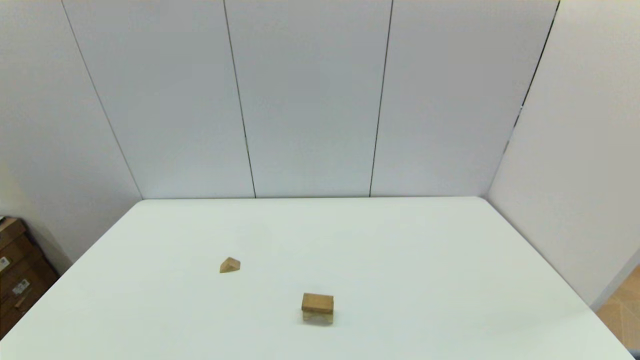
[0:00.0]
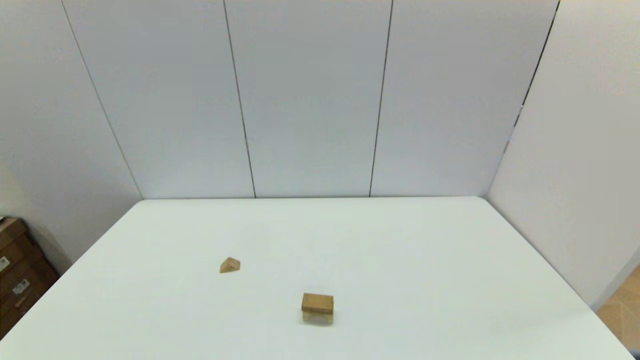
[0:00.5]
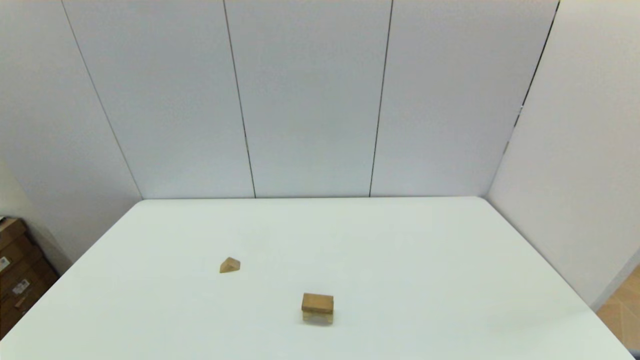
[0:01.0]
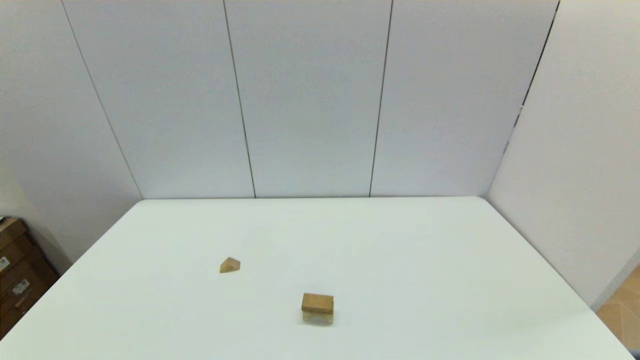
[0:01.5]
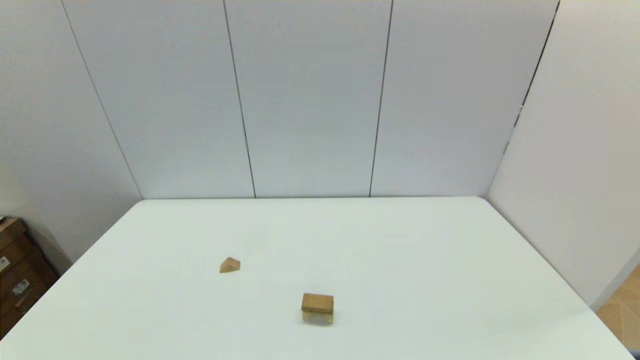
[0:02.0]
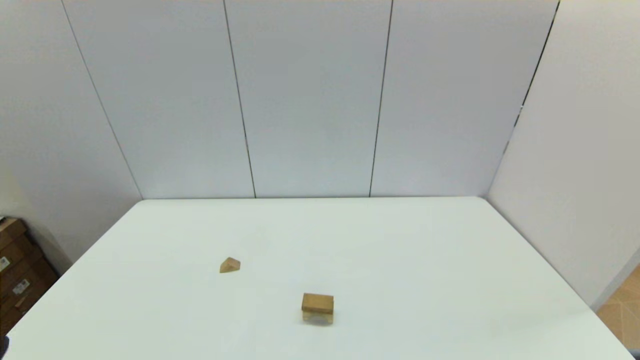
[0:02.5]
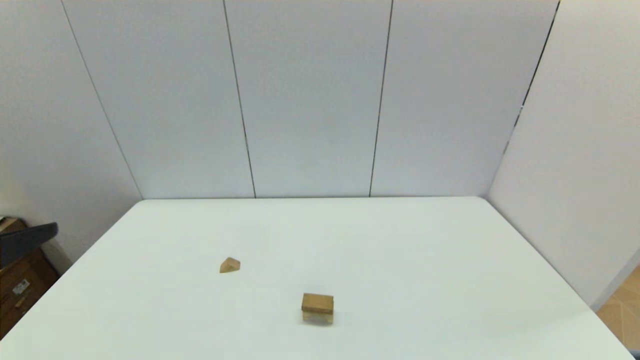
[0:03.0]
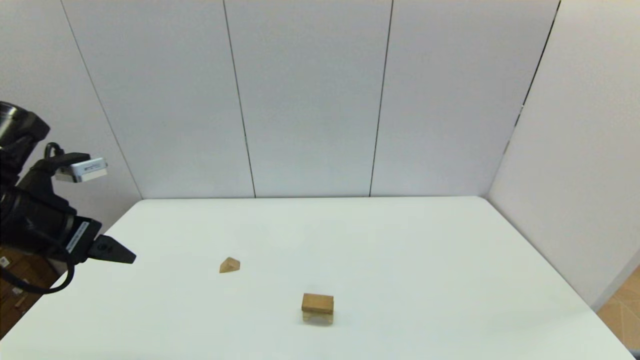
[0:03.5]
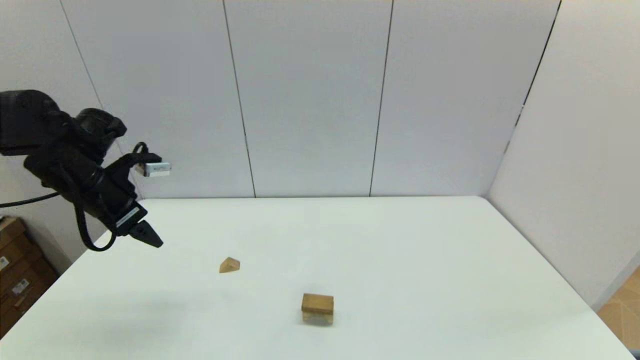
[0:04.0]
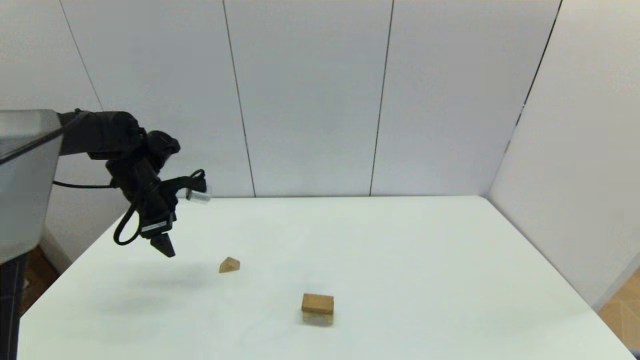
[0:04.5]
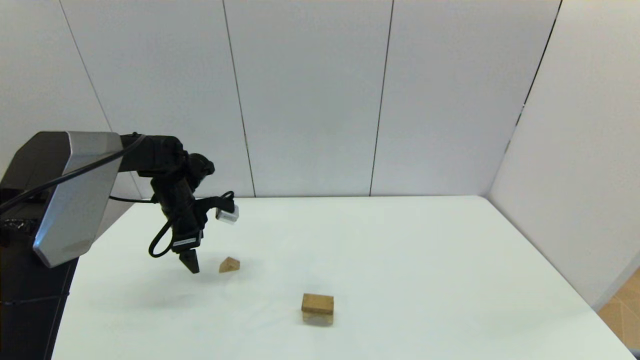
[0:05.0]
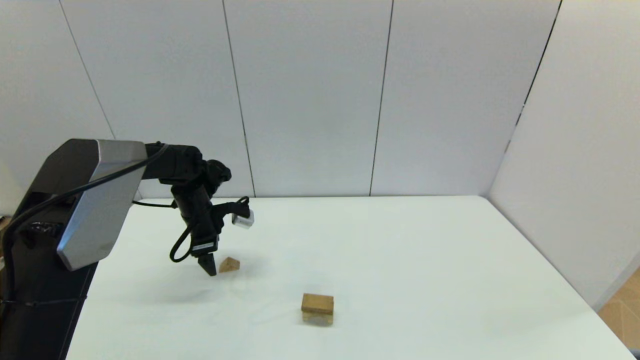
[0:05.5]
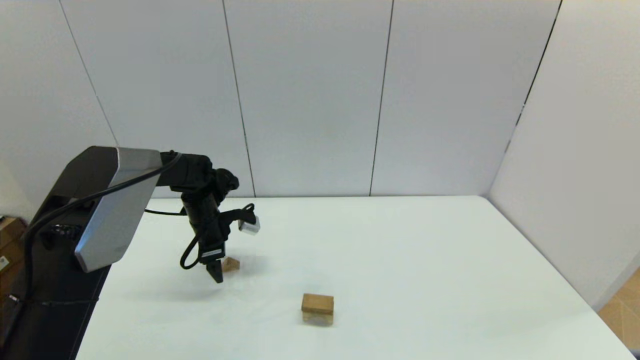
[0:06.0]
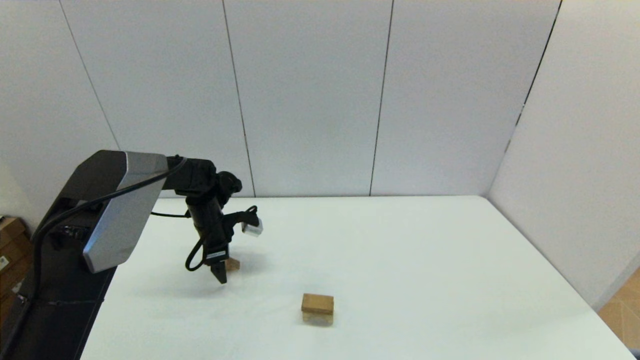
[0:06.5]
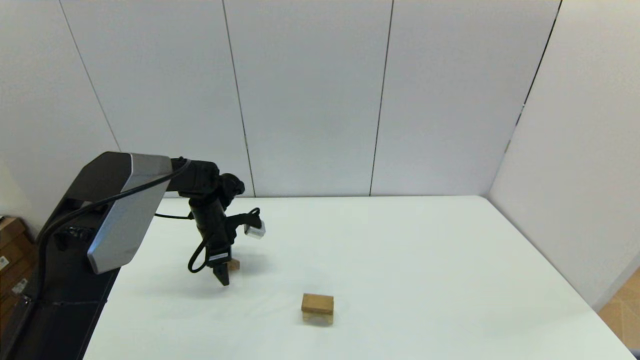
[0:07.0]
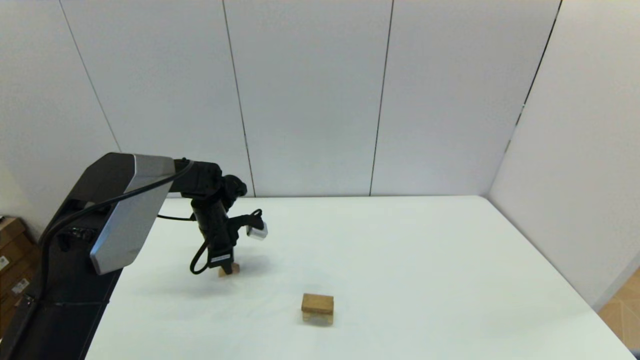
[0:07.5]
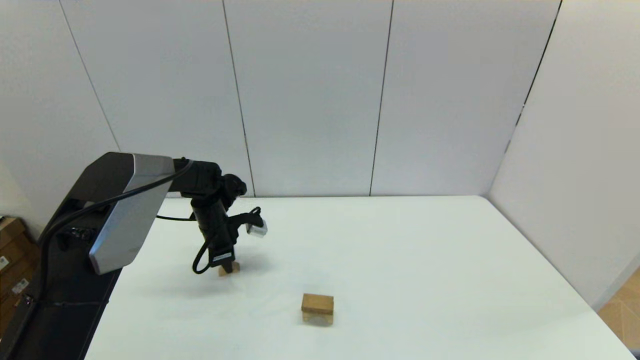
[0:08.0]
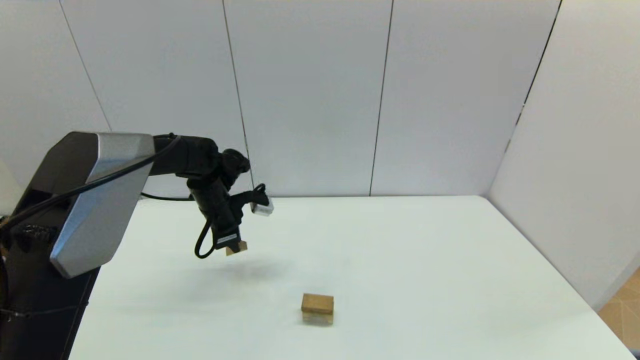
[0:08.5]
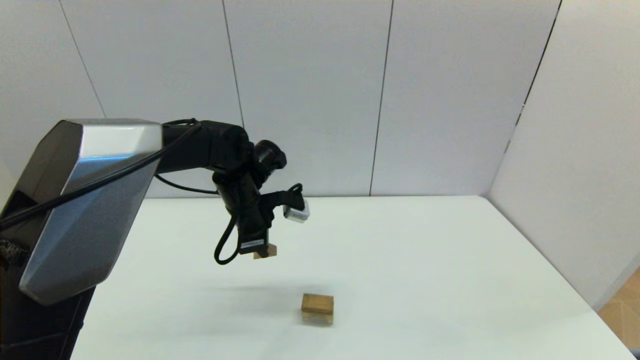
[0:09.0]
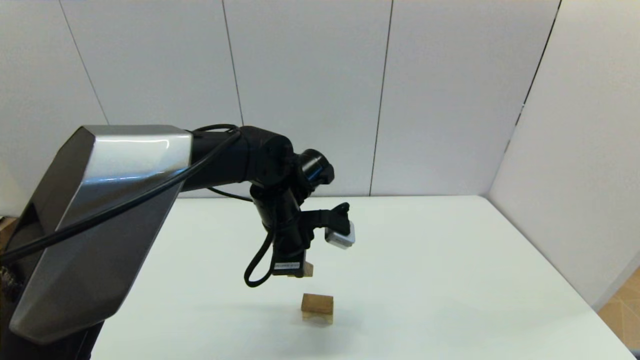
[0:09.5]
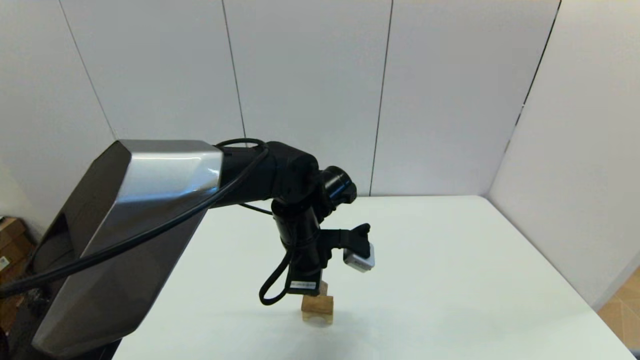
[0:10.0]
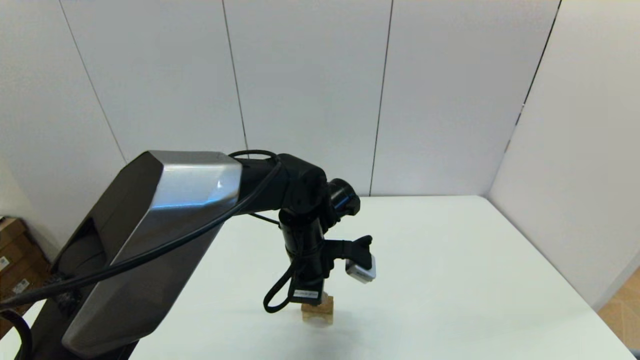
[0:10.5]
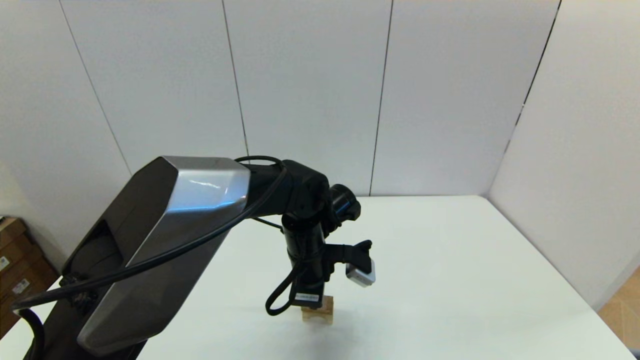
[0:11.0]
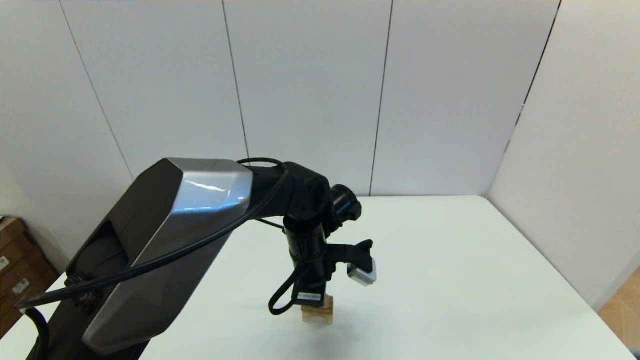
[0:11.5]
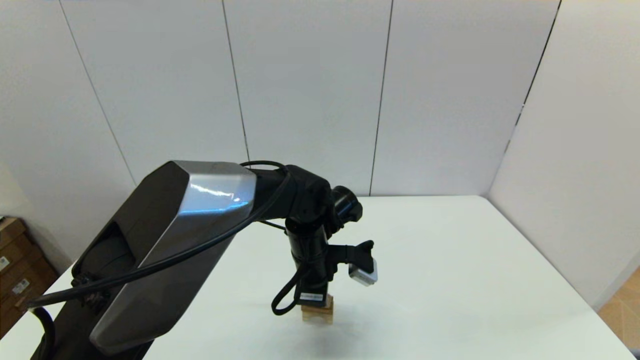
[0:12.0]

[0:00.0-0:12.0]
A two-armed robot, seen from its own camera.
Task of the whole recording: place the arched building blocks in the center of the table, set up the rectangular building blocks, and then set up the triangular building blocks.
Step, 0:00.0 to 0:07.5: Grasp the triangle-shaped block with the left gripper.
0:02.0 to 0:04.0: The left gripper goes approximately 35 cm forward.
0:04.0 to 0:06.0: The left gripper goes roughly 20 cm downward, to the right and forward.
0:06.0 to 0:08.0: The left gripper closes.
0:08.0 to 0:10.0: The left gripper goes some 25 cm to the right, backward and upward.
0:10.0 to 0:12.0: The grippers move only a little.

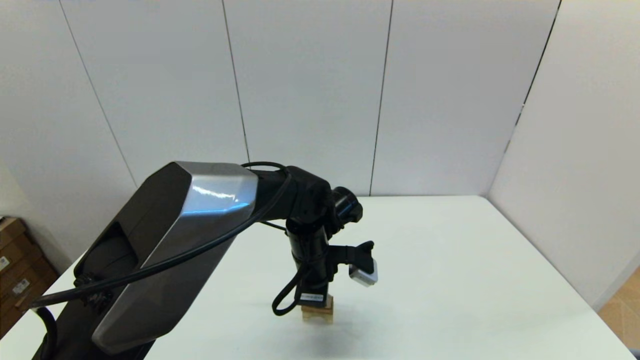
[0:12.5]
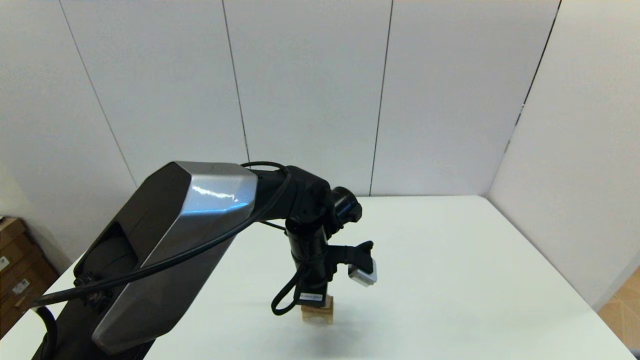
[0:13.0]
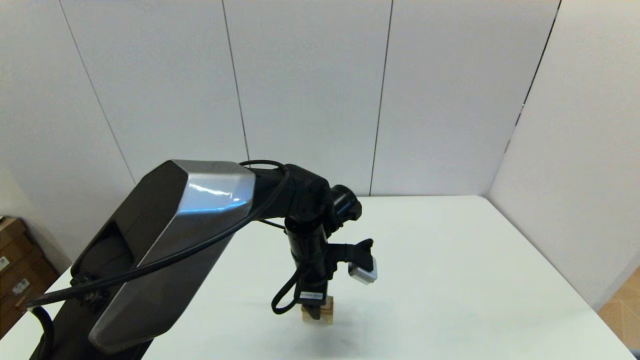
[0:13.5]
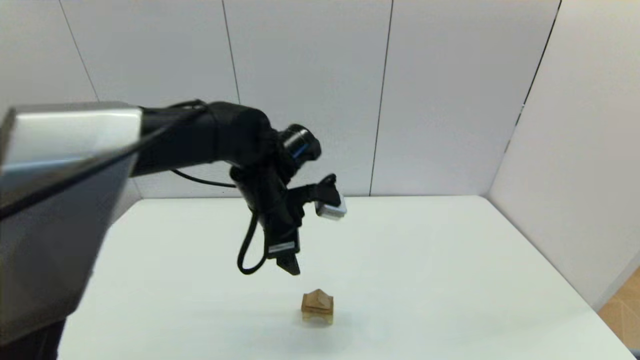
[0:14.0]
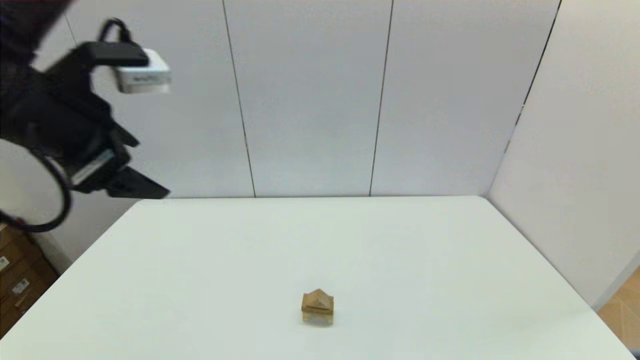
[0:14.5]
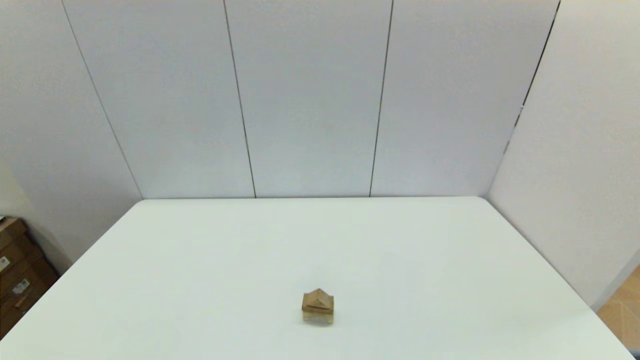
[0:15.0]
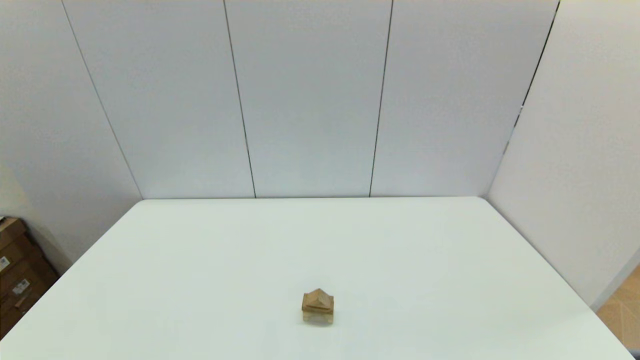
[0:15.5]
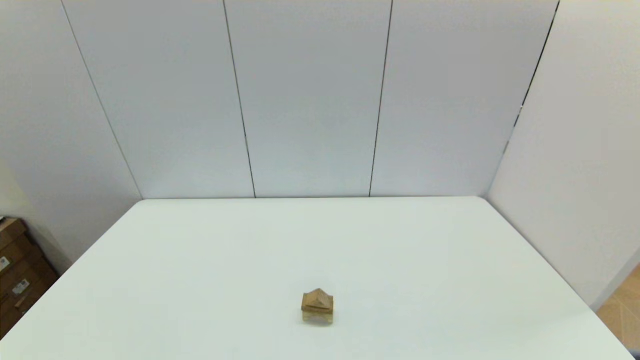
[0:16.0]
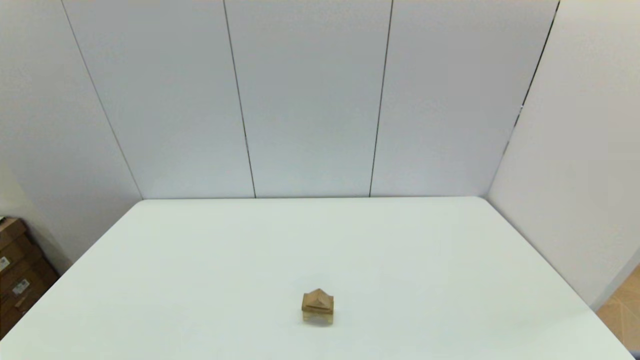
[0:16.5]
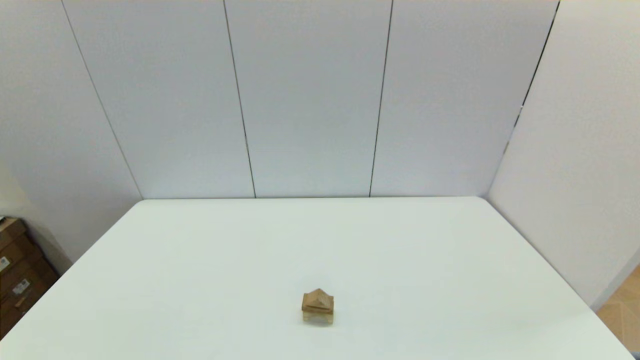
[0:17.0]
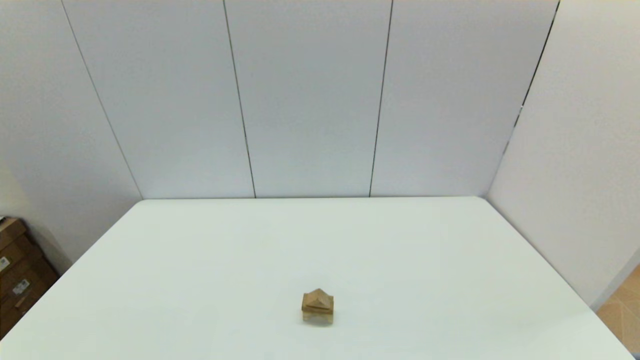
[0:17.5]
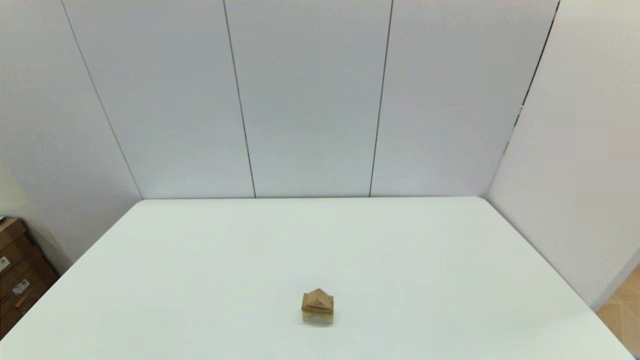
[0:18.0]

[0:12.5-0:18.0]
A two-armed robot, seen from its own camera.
Task of the whole recording: place the arched building blocks in the center of the table, set up the rectangular building blocks, and then set up the triangular building blocks.
0:12.5 to 0:14.5: The left gripper shifts approximately 35 cm upward, to the left and backward, and opens its fingers.
0:14.5 to 0:16.0: The left gripper heads backward and downward, covering some 35 cm.

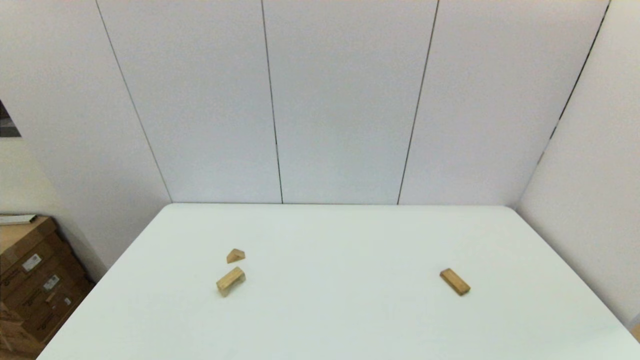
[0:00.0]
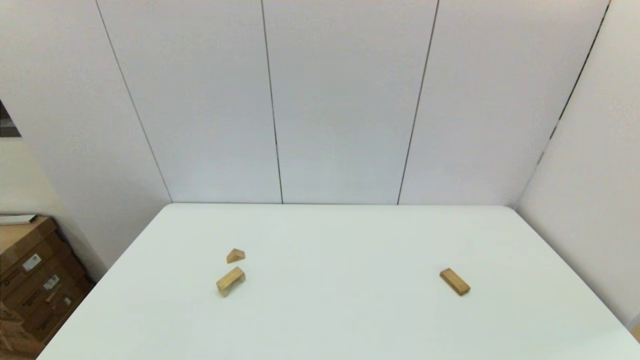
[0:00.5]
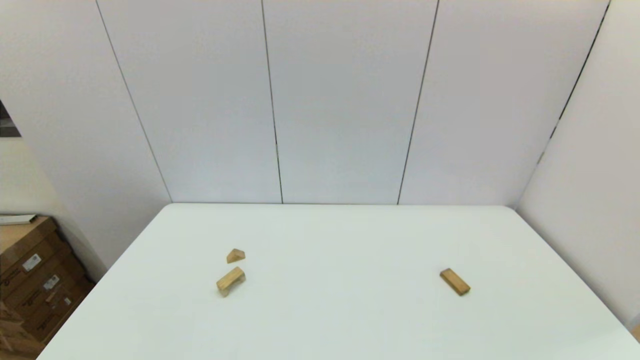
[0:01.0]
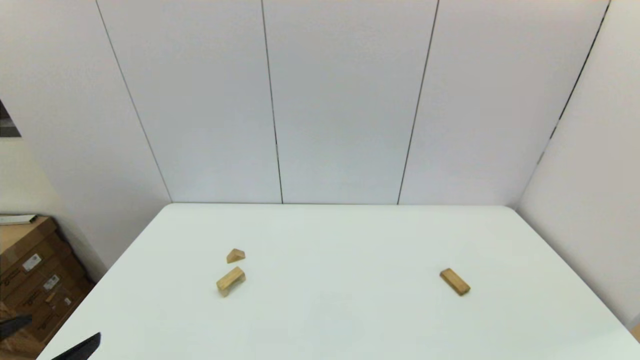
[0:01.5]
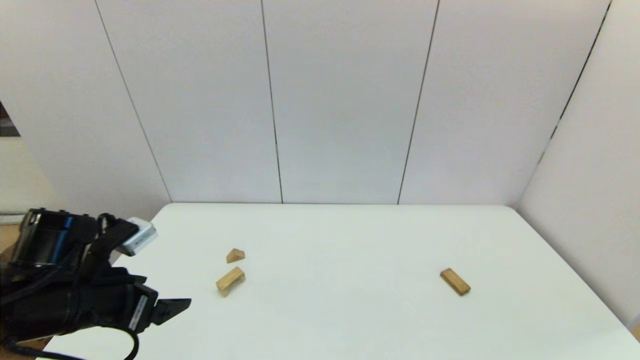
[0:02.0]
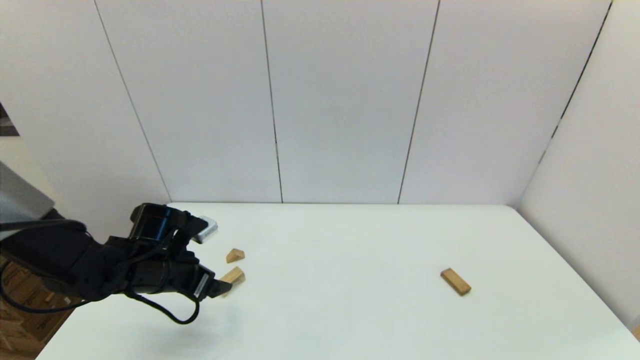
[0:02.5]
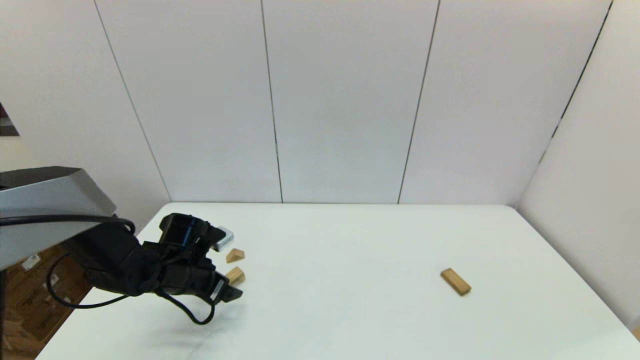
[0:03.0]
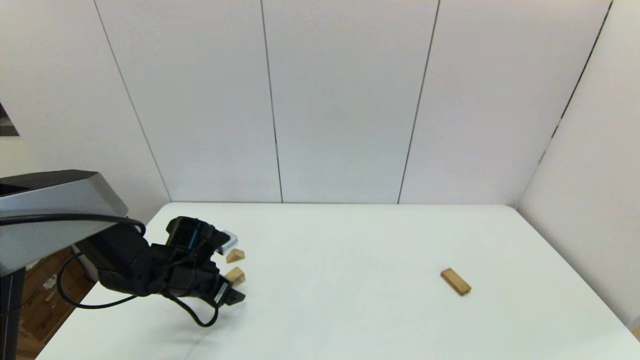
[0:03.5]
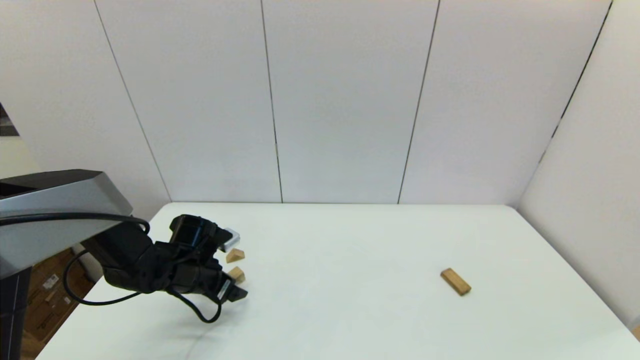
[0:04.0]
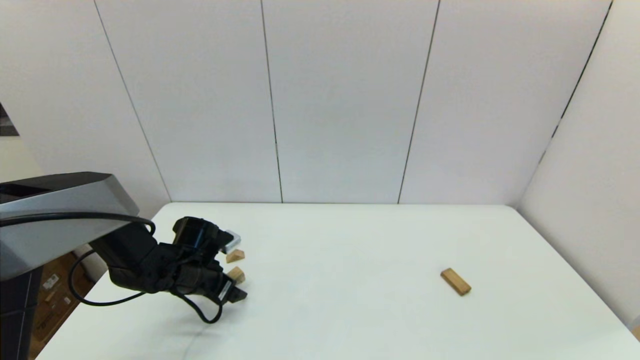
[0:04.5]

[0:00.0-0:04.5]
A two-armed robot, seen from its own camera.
Task of the whole recording: place the arched building blocks in the center of the table, set up the rectangular building blocks, and then set up the triangular building blocks.
0:00.0 to 0:02.0: The left gripper goes approximately 20 cm forward.
0:02.0 to 0:04.5: The left gripper is displaced downward and forward by roughly 20 cm.
